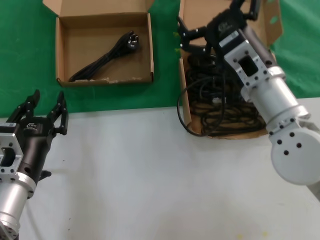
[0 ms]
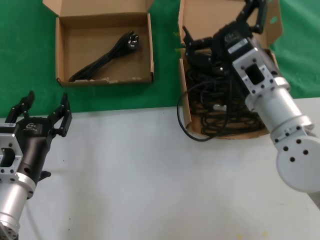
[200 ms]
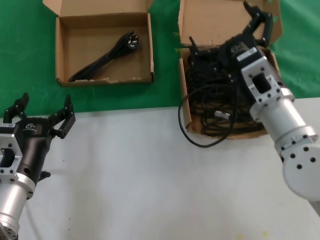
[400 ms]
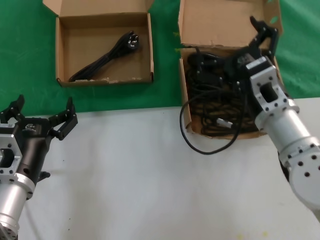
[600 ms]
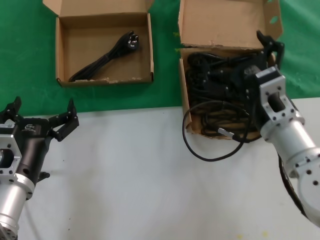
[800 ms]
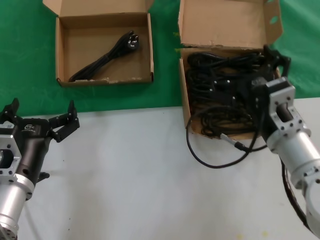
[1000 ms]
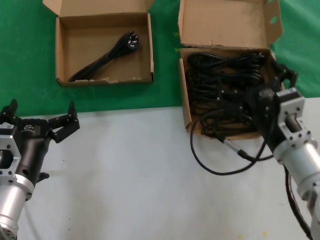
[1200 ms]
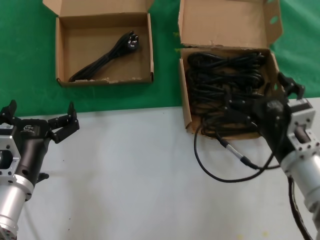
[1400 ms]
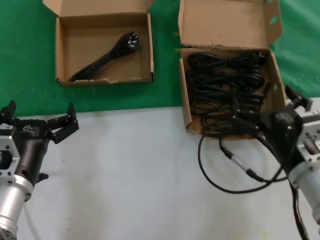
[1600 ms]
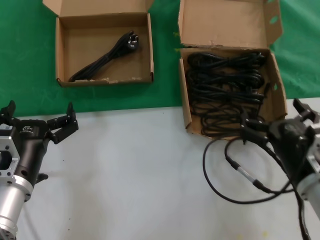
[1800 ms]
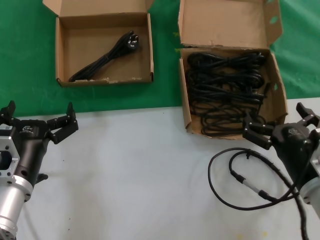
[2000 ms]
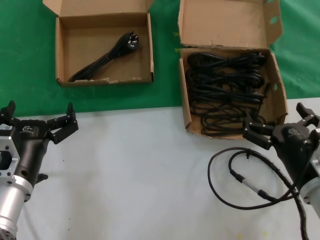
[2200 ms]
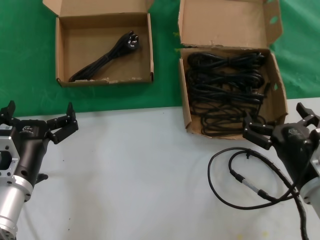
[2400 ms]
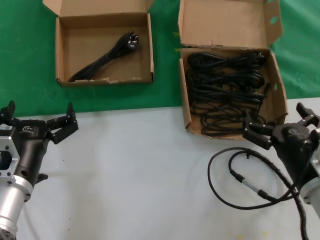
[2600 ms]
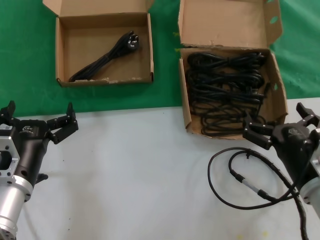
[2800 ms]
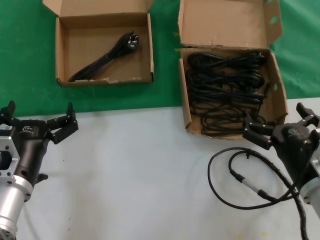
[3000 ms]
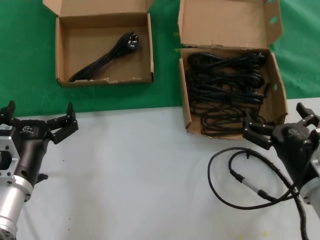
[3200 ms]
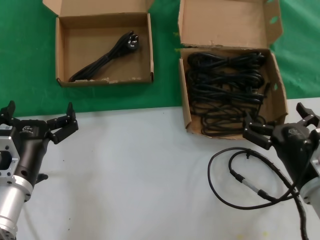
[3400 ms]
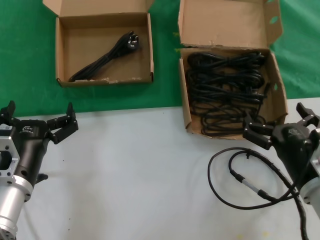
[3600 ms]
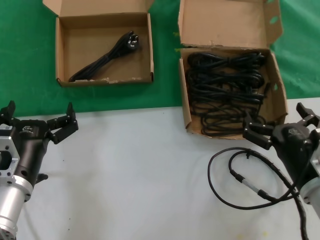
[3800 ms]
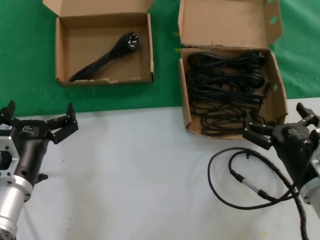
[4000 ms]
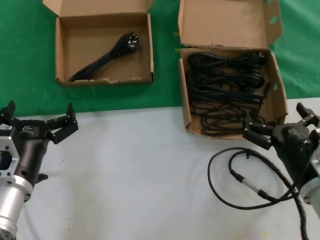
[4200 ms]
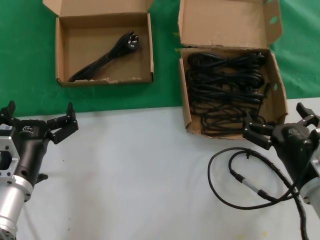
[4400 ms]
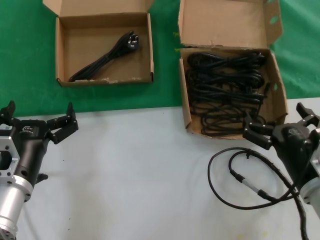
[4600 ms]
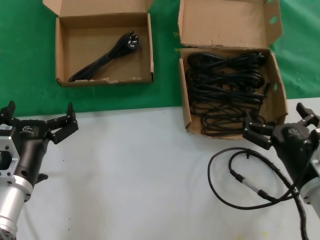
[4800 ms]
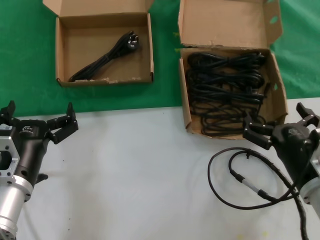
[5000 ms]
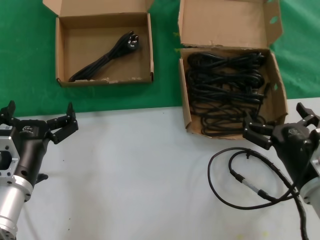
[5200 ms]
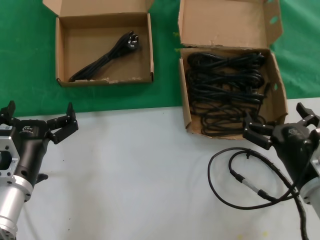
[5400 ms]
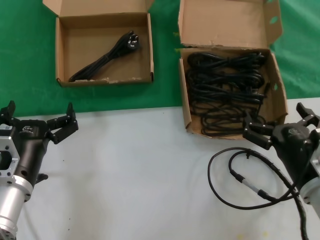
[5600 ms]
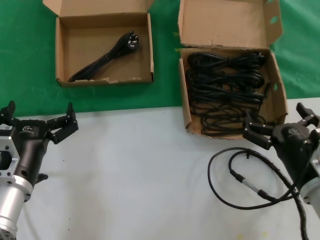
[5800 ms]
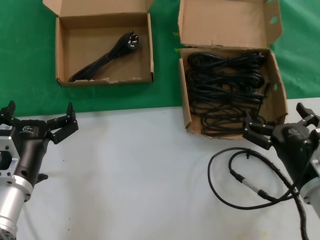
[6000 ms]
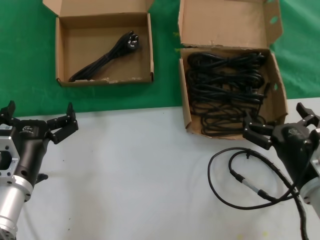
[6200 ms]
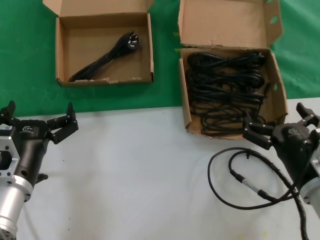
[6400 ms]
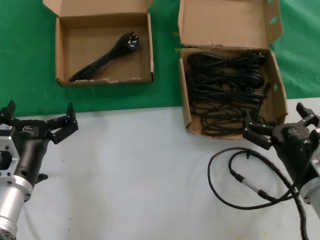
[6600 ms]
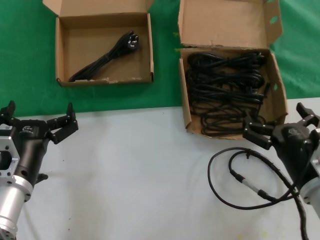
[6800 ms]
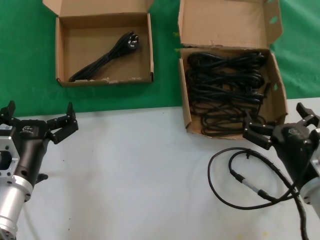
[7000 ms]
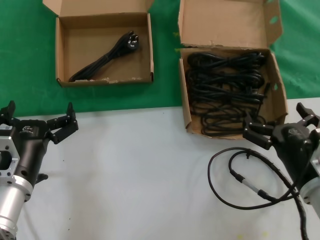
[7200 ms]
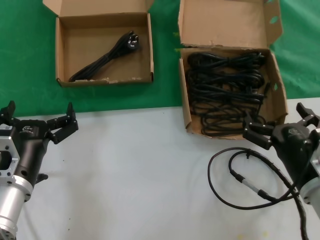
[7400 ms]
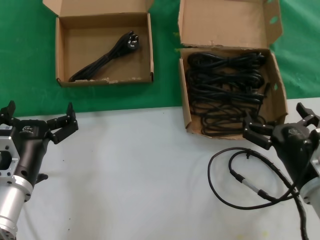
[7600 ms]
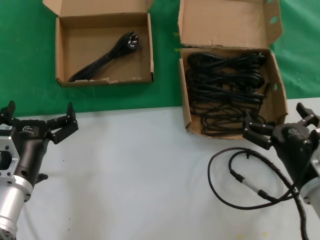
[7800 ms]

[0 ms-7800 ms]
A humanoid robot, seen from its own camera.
Task of the whole recording: take the parts from the box containing them and put them into an empty box.
0 ms to 1600 ms: The right hand is displaced downward, backward and to the right by approximately 15 cm.
1600 ms to 3200 ms: The hands make only small movements.
3200 ms to 7800 ms: Both hands stay about where they are.

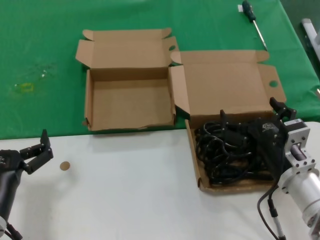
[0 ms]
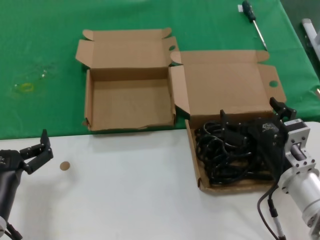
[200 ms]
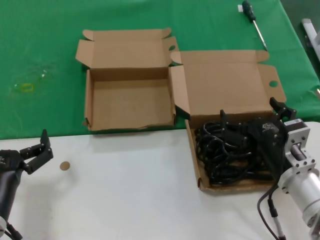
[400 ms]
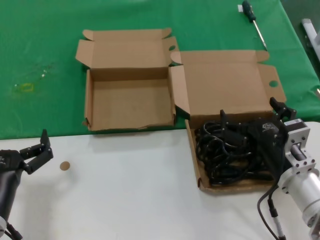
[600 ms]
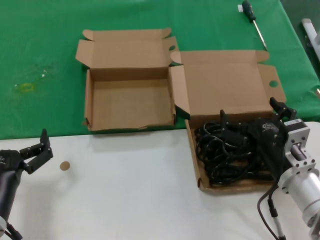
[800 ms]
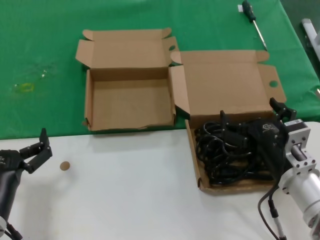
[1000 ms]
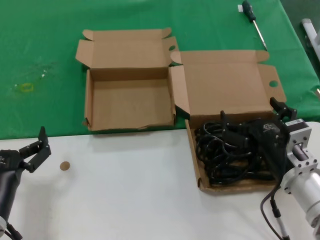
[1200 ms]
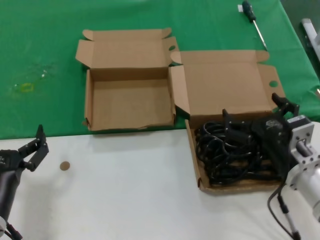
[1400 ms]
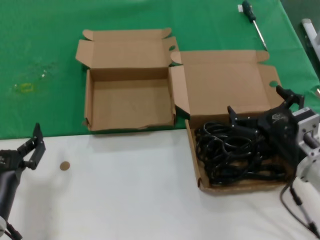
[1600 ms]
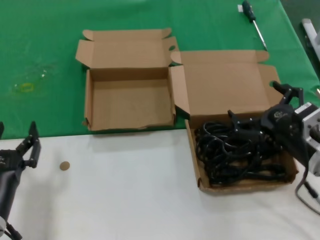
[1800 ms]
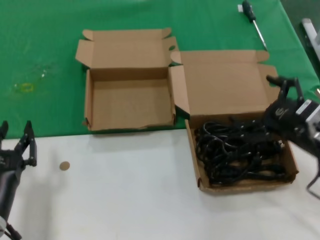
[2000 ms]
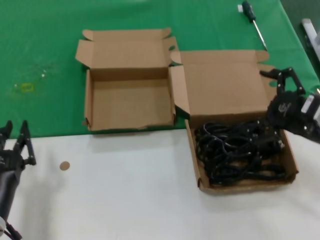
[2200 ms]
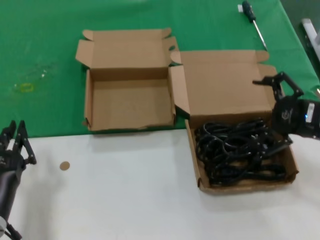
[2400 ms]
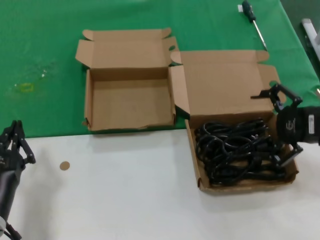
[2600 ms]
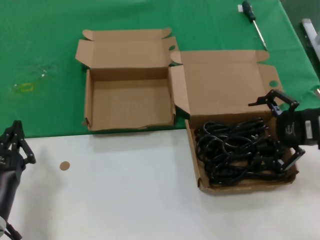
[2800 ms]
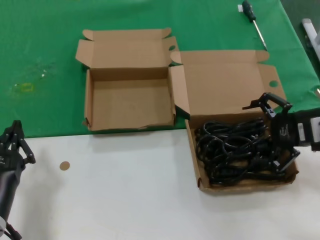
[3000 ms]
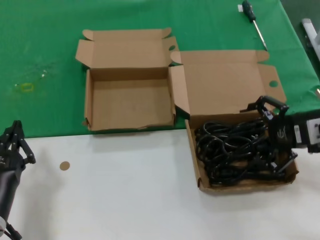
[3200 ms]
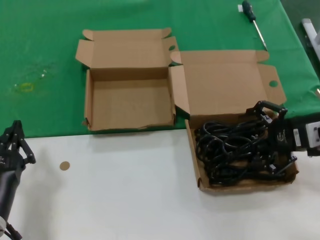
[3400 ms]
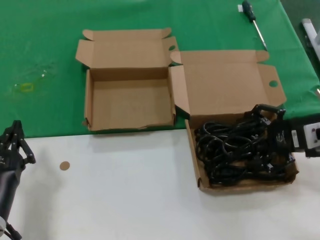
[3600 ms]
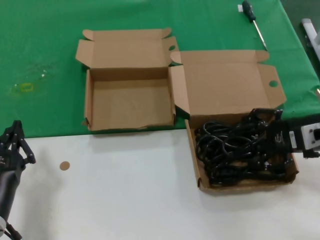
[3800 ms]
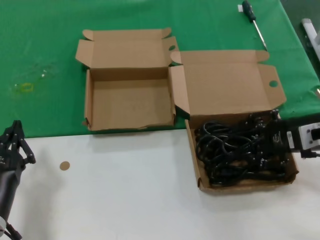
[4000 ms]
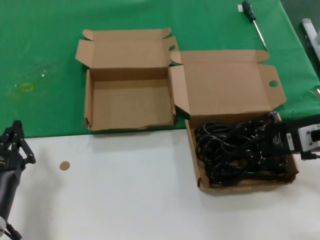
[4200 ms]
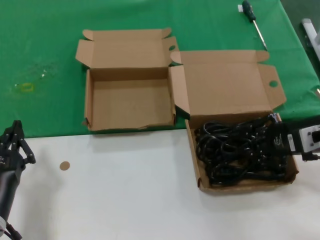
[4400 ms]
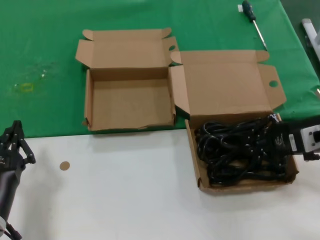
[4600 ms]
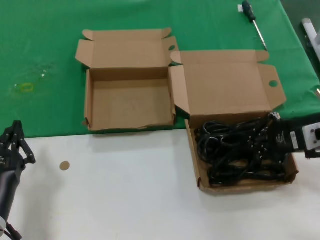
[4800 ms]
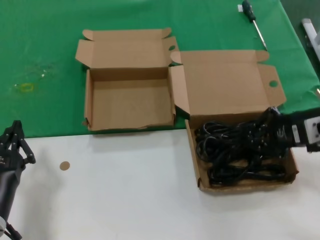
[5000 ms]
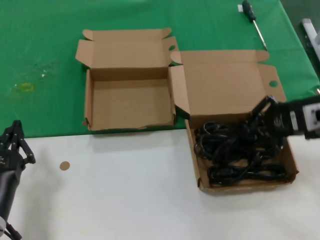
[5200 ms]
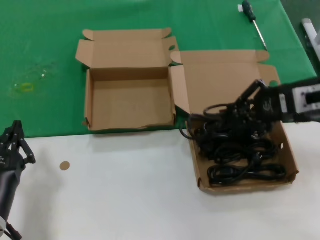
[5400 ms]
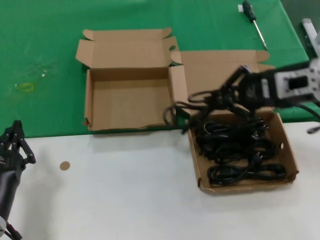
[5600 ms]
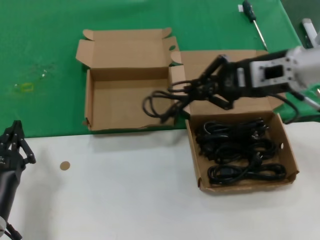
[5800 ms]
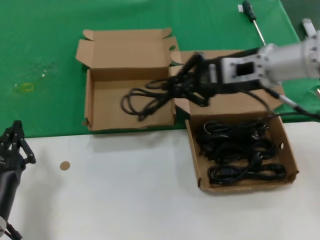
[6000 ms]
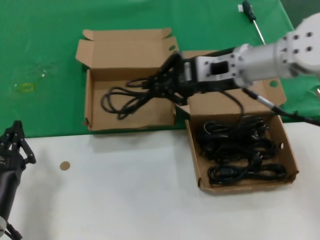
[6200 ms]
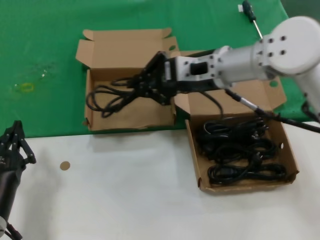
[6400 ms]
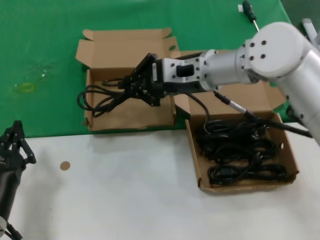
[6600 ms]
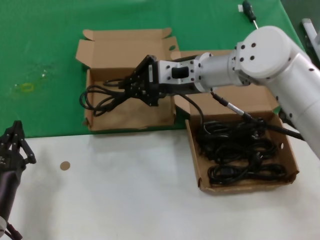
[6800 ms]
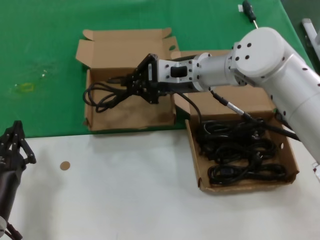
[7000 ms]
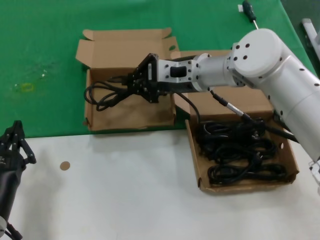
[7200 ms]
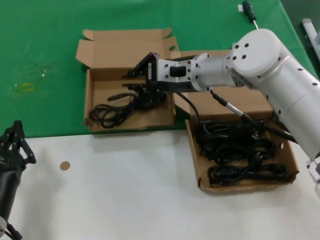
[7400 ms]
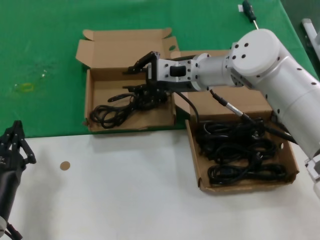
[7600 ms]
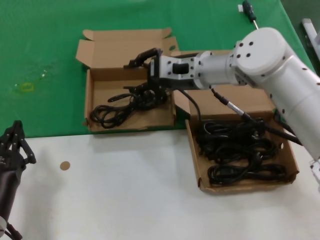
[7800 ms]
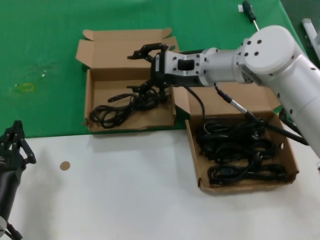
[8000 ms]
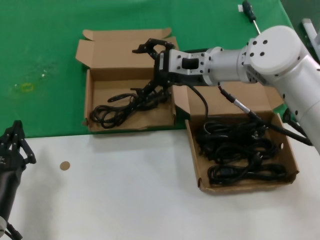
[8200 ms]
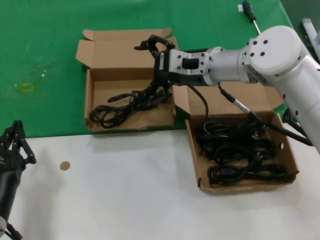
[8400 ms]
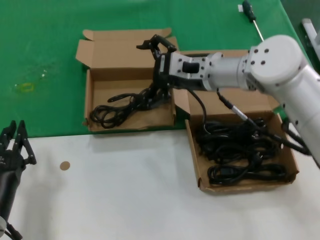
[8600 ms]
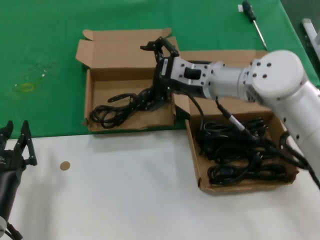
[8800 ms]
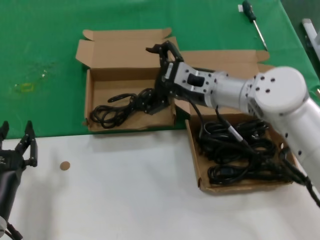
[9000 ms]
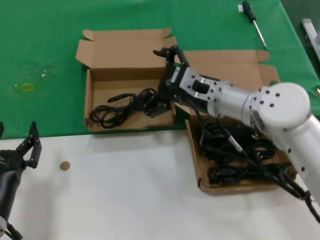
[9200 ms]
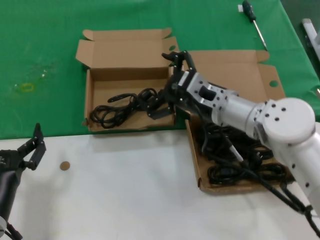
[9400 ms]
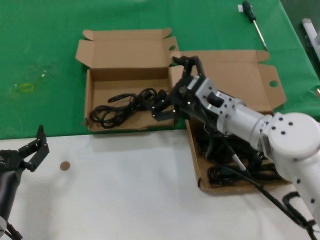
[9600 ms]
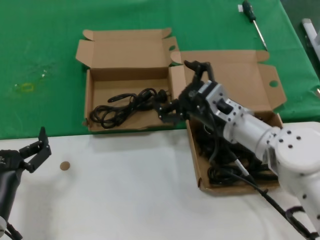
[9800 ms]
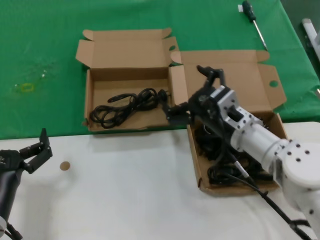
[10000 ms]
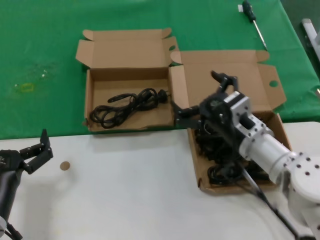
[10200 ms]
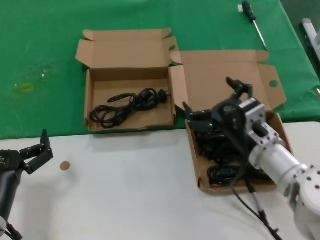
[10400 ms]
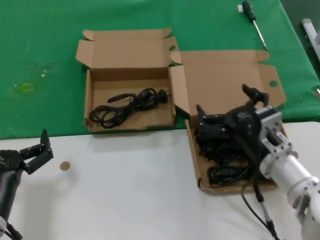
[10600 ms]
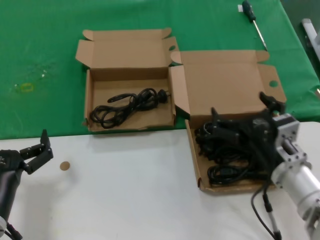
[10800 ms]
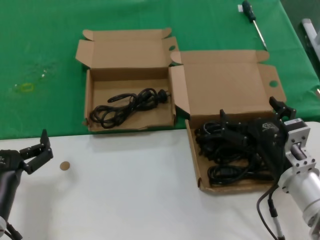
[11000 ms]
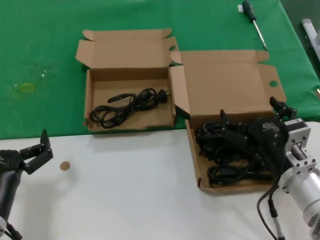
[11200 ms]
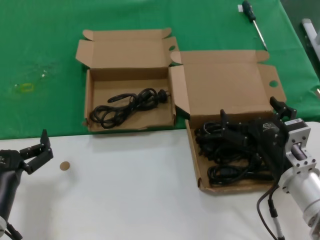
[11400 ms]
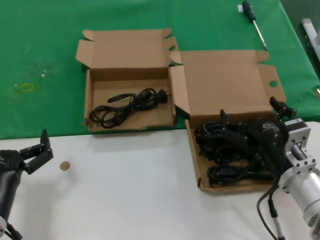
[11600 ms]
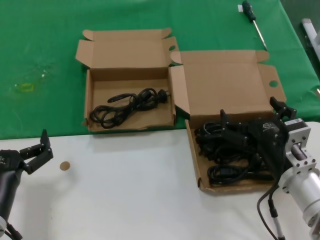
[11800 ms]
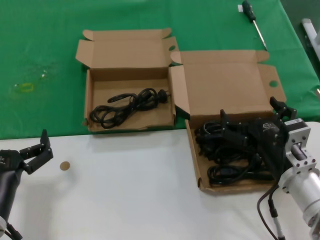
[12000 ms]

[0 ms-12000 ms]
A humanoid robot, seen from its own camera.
Task of the whole recording: take the parts from the box containing them and put them into an empty box.
Step, 0 ms to 4400 ms: Grasp the data cable.
Step, 4600 ms to 8000 ms: Place the data cable in the another box.
0 ms to 1600 ms: The hands stay close to where they were, moving slightly.
1600 ms to 3000 ms: The right hand goes approximately 15 cm upward, to the right and forward.
3000 ms to 4400 ms: The hands make only small movements.
4400 ms to 6000 ms: The right hand heads to the left, upward and forward, covering approximately 15 cm.
6000 ms to 7600 ms: The right hand is displaced to the left, forward and downward by about 15 cm.
7600 ms to 9000 ms: The right hand ends up roughly 5 cm from where it was.
9000 ms to 10400 ms: The right hand travels backward, downward and to the right by about 15 cm.
10400 ms to 12000 ms: The right hand shifts about 5 cm backward.

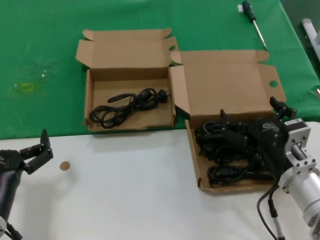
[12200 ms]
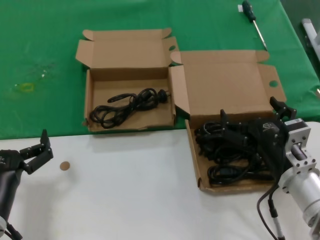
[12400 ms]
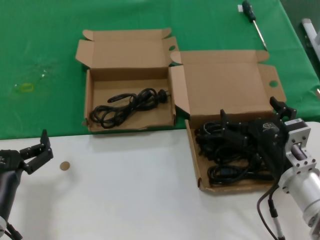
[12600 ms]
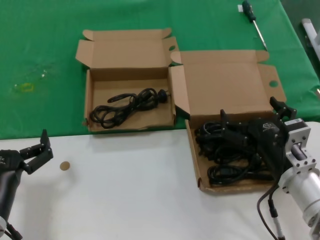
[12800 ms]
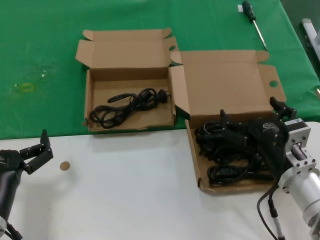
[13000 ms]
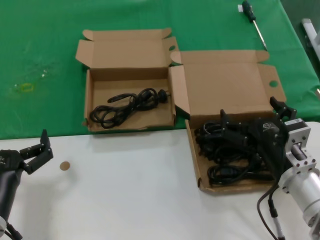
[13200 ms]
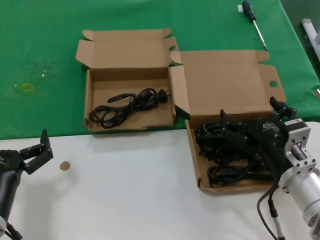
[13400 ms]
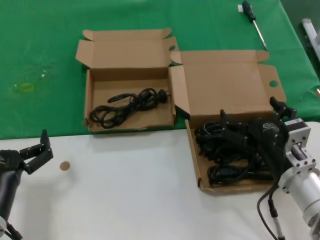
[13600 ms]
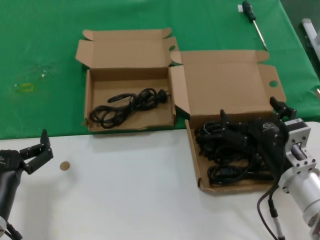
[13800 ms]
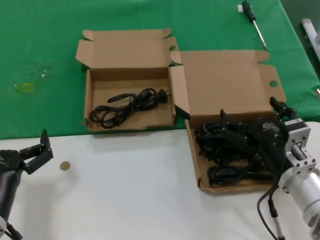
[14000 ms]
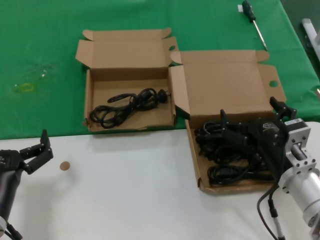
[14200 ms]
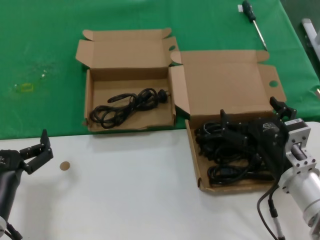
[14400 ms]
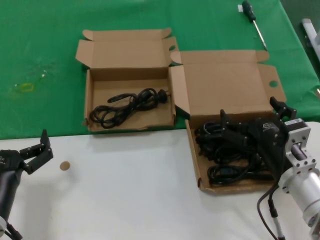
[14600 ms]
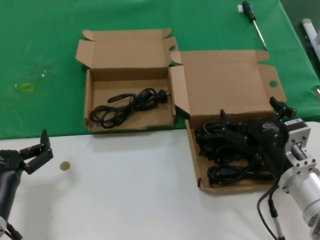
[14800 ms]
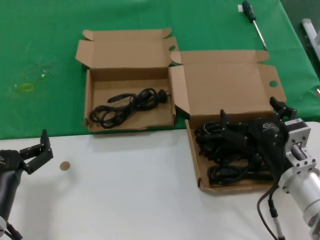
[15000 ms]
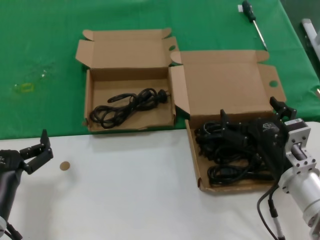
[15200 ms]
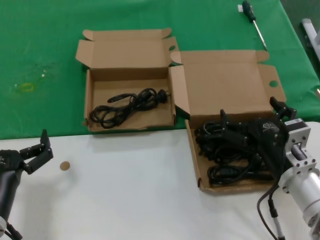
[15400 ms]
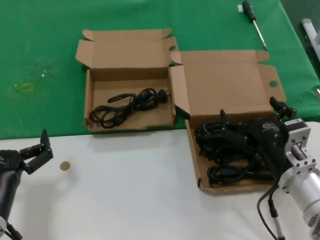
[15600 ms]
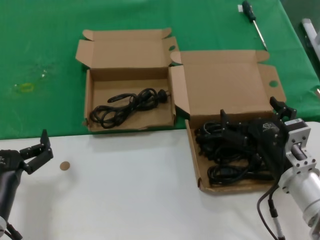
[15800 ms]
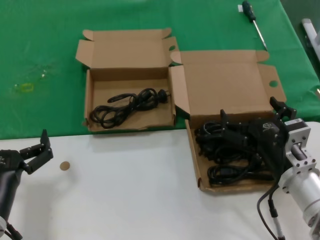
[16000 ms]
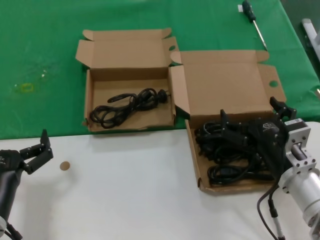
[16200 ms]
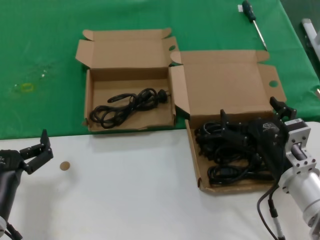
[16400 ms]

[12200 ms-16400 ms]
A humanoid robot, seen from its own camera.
Task of the whole recording: take the parts from the box containing them and put them into an empty box.
12200 ms to 16400 ms: Both hands stay put.
